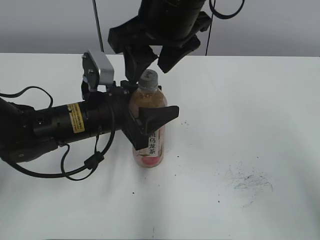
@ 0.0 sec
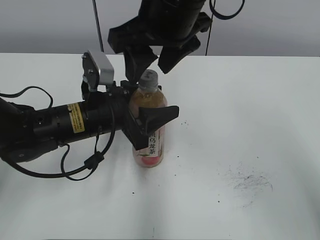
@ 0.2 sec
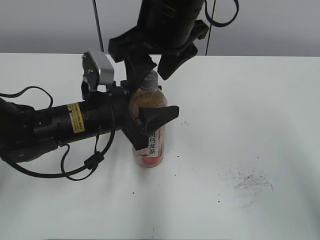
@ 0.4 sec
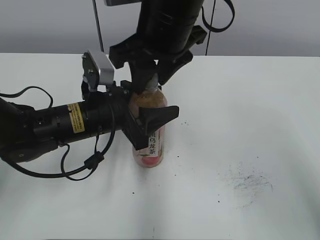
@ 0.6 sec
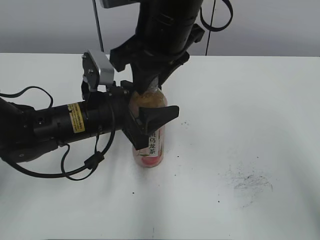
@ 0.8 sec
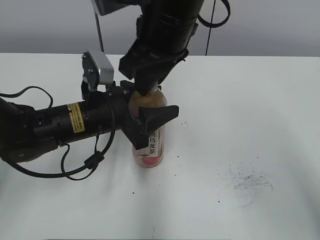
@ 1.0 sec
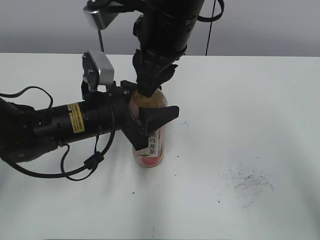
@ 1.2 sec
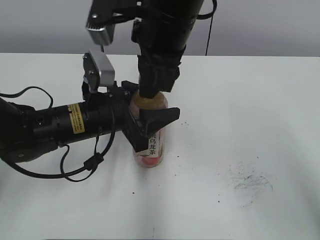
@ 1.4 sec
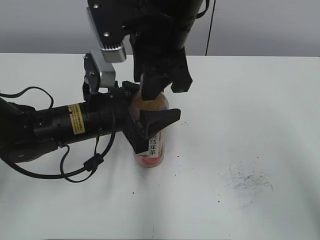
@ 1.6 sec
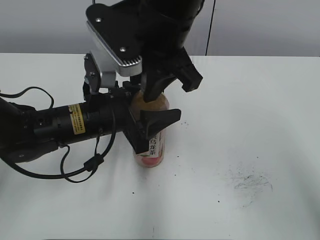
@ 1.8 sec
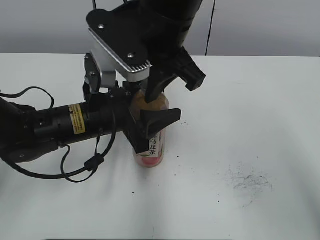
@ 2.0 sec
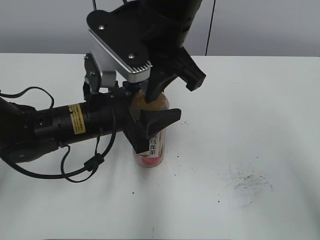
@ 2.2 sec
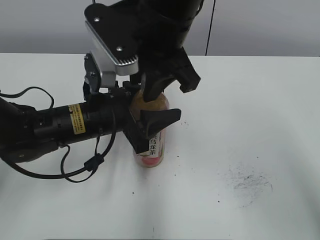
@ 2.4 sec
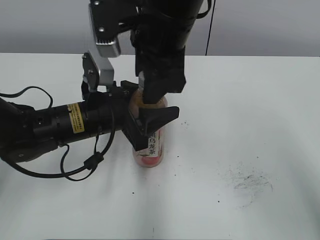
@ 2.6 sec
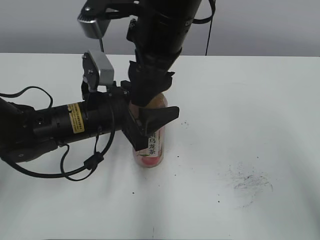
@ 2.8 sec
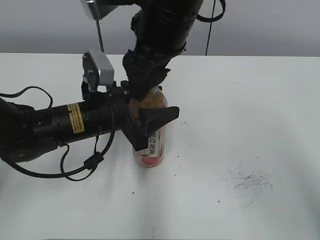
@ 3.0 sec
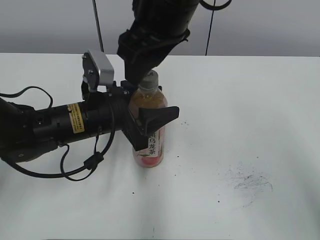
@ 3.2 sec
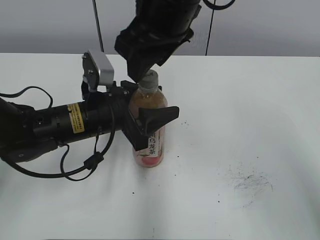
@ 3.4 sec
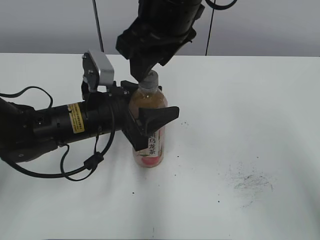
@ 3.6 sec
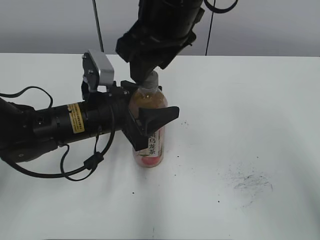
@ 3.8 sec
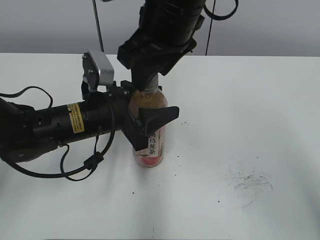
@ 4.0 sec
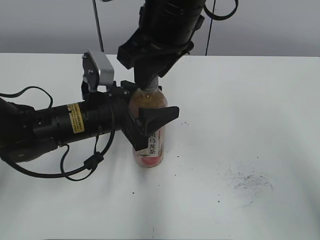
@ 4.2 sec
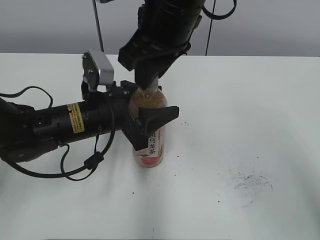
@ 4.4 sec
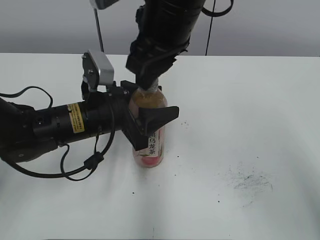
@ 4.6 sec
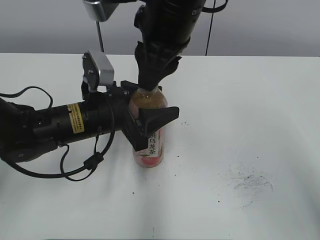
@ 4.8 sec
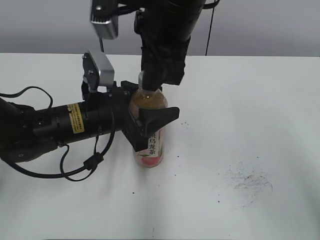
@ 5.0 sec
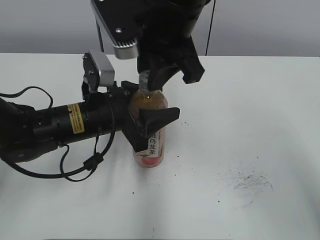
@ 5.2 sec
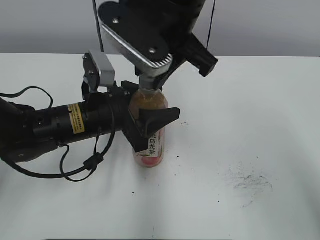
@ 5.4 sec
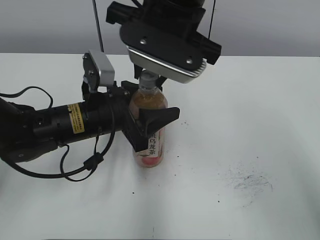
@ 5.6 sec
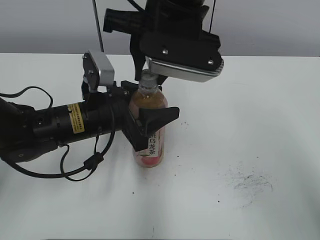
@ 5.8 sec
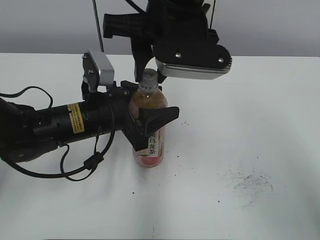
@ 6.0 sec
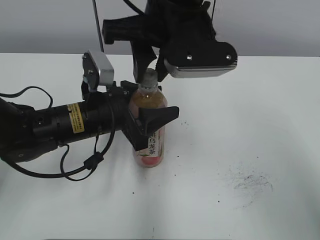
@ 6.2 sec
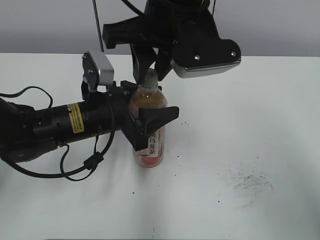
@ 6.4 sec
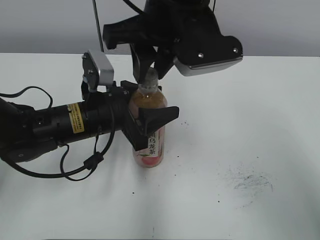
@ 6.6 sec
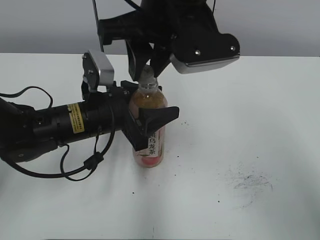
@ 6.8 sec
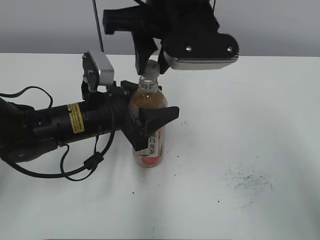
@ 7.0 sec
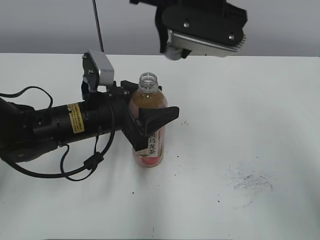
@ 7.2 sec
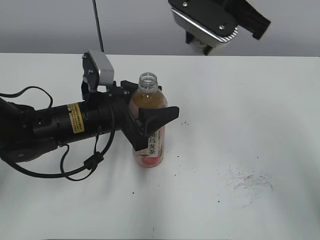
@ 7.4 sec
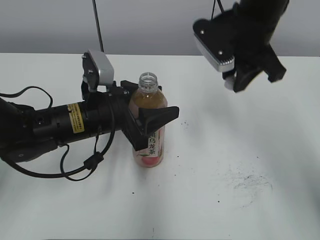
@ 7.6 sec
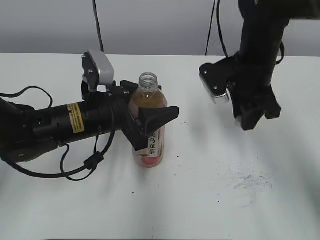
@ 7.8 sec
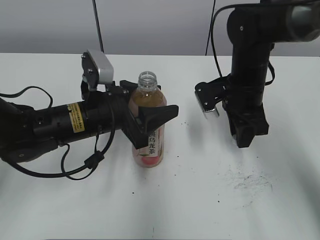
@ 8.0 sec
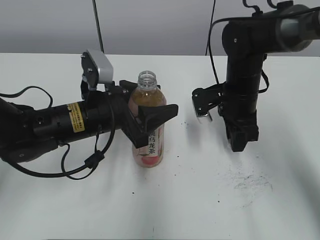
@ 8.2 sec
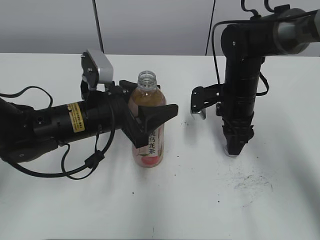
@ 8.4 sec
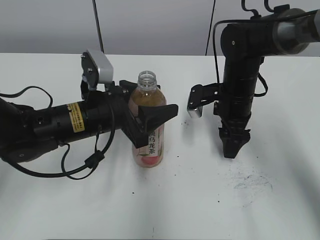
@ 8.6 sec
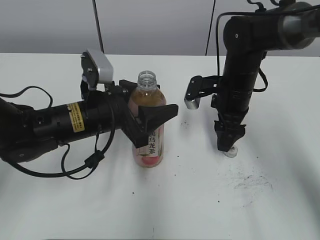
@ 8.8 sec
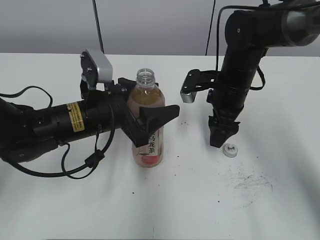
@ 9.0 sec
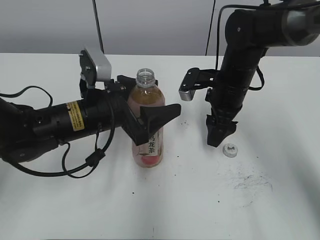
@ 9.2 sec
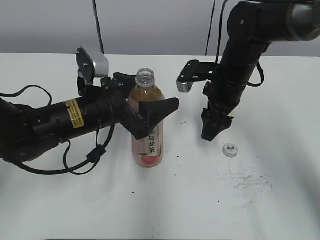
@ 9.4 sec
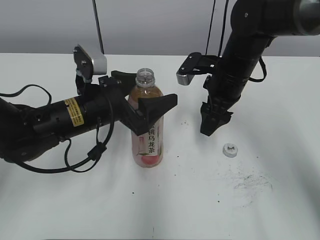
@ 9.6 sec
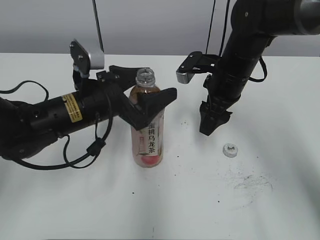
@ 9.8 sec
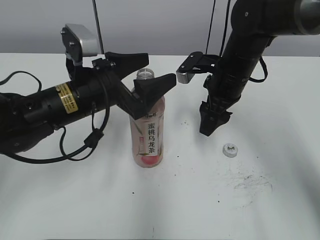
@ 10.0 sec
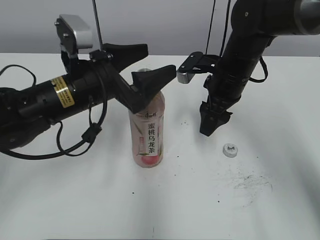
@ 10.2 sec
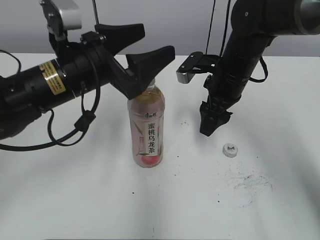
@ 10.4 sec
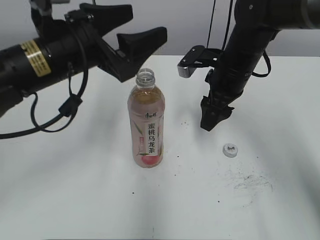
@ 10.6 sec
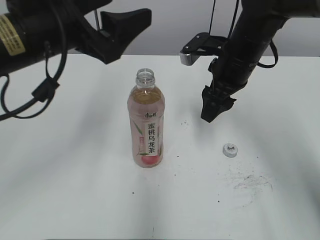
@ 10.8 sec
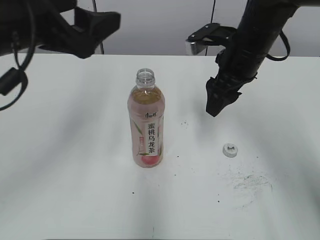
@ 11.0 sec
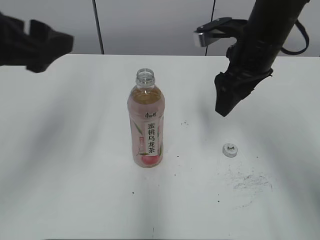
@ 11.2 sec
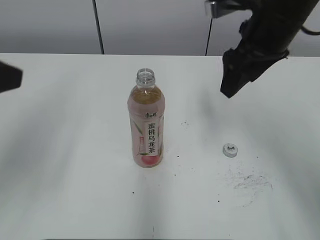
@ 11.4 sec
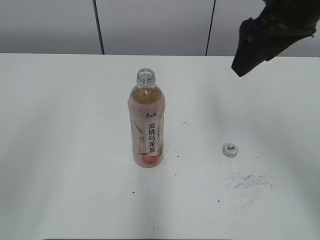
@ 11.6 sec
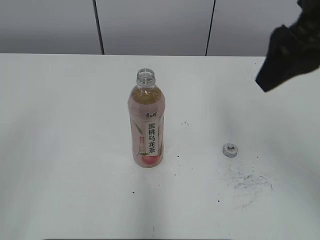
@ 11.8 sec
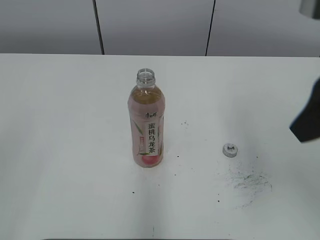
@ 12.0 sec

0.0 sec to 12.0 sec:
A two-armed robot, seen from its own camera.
Step, 7.0 sec to 8.6 sec: Place the bottle cap on the right.
Step, 8.8 sec to 9.8 sec: Place the Peach Oolong Tea with the left hand.
0.0 sec to 1.6 sec: The right gripper closes its fingers.
1.6 sec to 3.0 sec: The right gripper opens its fingers.
3.0 sec to 4.4 sec: The right gripper closes its fingers.
6.0 sec to 7.6 sec: The right gripper goes about 15 cm to the right and forward.
7.6 sec to 9.0 sec: The right gripper goes about 15 cm downward, and opens its fingers. The left gripper opens.
9.0 sec to 10.4 sec: The left gripper shifts about 5 cm upward, and opens.
10.4 sec to 12.0 sec: The right gripper moves backward, upward and to the right, roughly 25 cm, while the left gripper is displaced backward, to the left and upward by about 35 cm.

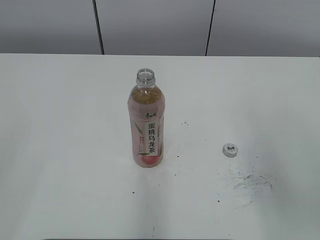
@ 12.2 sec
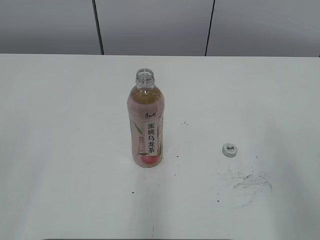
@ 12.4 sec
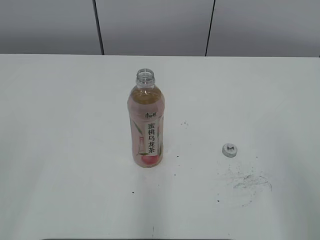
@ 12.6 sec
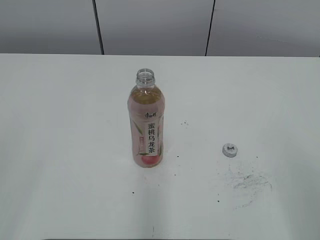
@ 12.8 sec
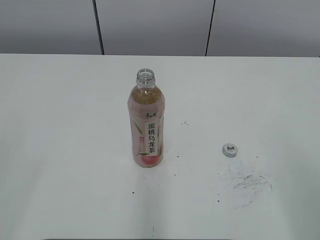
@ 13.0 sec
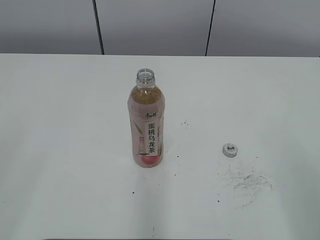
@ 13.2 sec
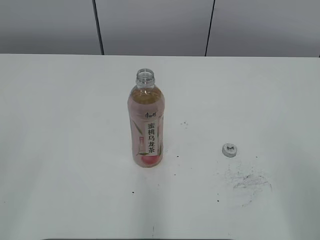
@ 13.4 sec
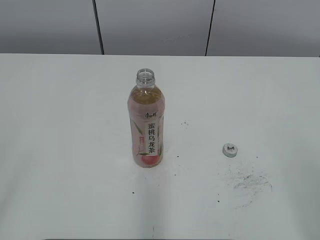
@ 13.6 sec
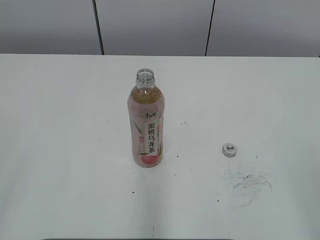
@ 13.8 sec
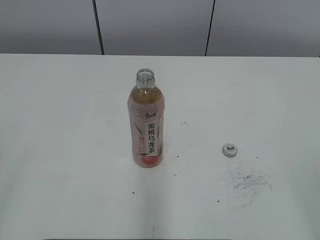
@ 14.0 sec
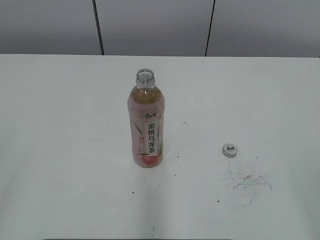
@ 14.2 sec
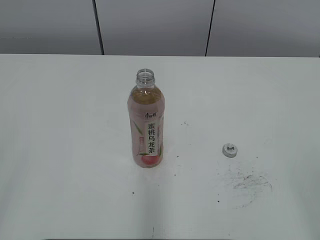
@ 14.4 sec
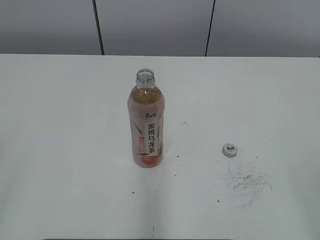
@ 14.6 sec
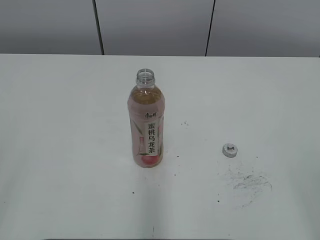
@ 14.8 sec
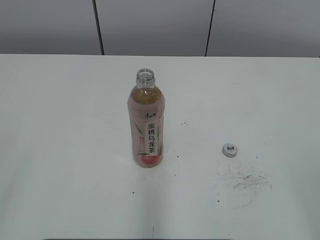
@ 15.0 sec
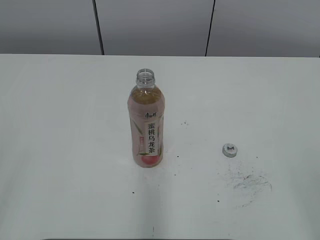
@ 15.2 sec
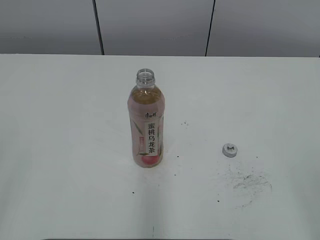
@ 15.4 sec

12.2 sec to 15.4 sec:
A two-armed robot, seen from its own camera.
12.2 sec to 13.8 sec: The right gripper goes approximately 15 cm backward and to the right.
